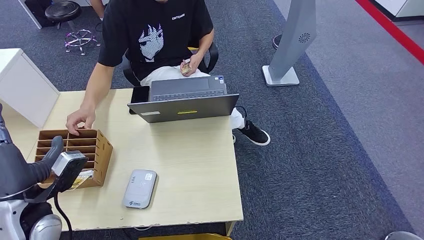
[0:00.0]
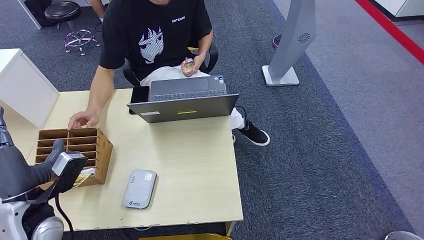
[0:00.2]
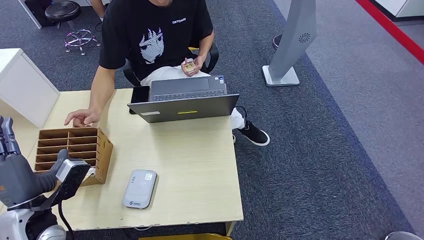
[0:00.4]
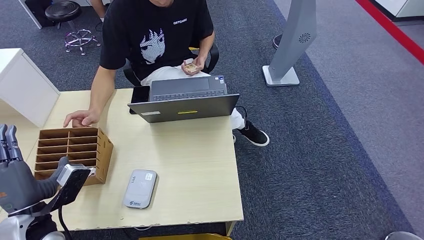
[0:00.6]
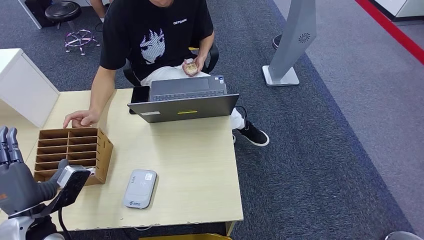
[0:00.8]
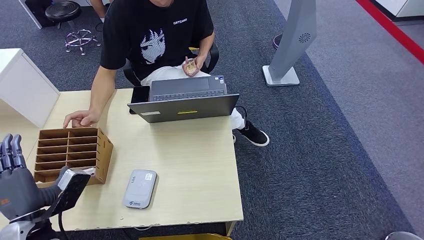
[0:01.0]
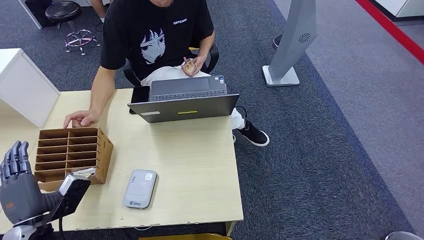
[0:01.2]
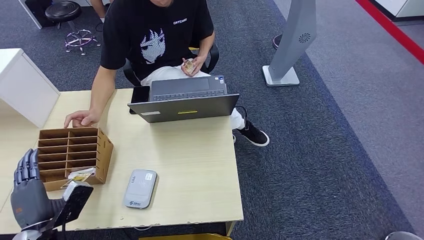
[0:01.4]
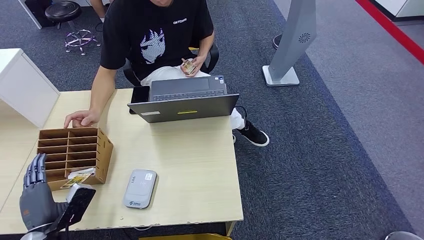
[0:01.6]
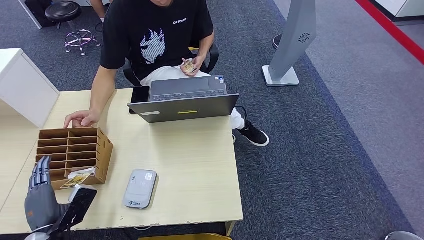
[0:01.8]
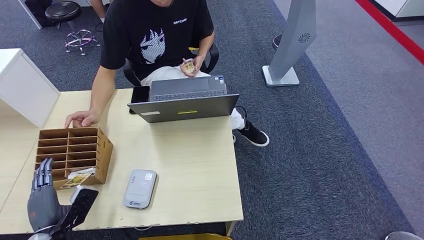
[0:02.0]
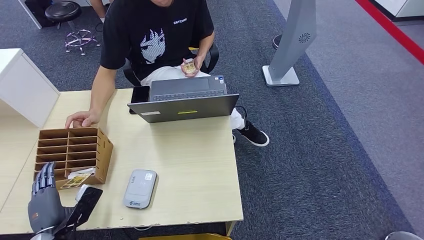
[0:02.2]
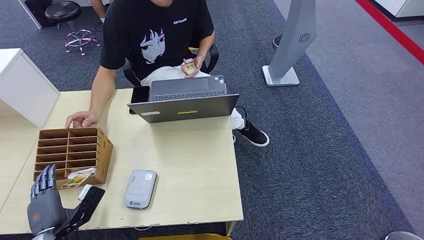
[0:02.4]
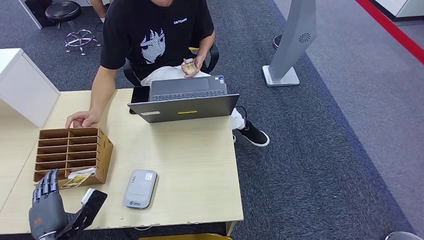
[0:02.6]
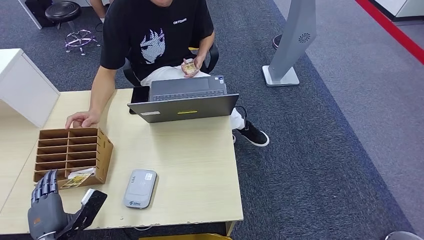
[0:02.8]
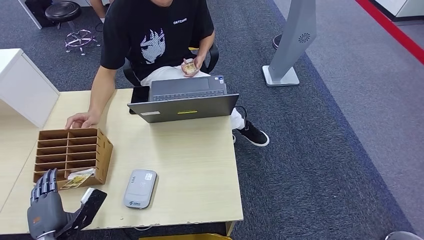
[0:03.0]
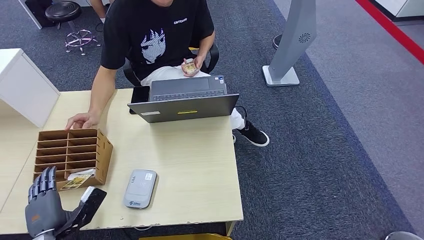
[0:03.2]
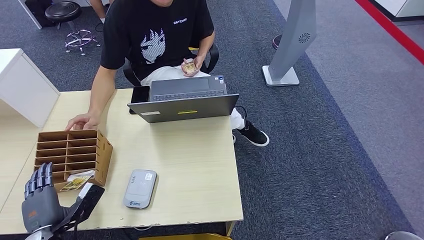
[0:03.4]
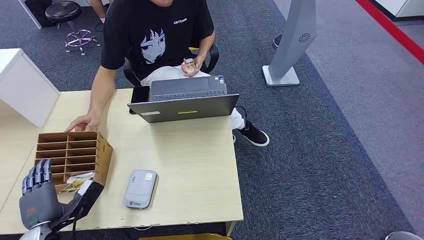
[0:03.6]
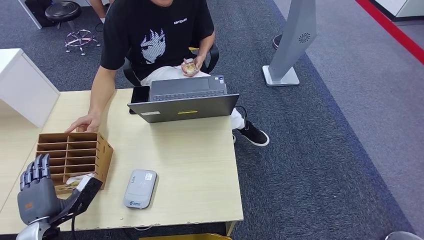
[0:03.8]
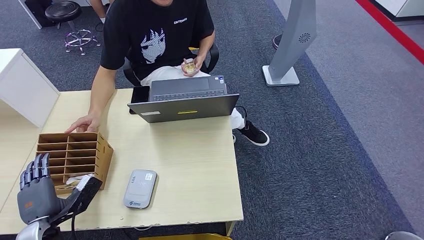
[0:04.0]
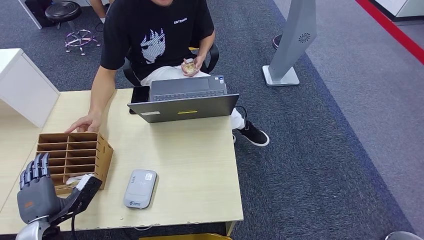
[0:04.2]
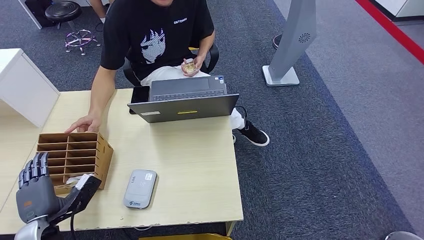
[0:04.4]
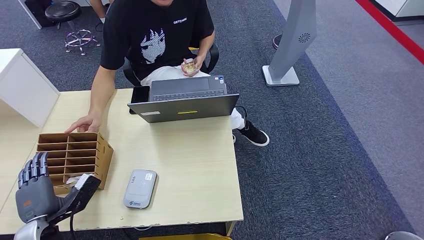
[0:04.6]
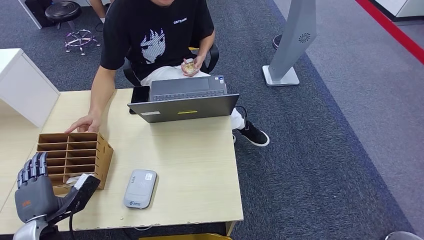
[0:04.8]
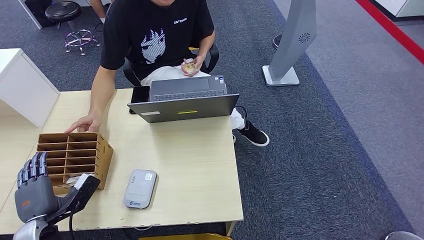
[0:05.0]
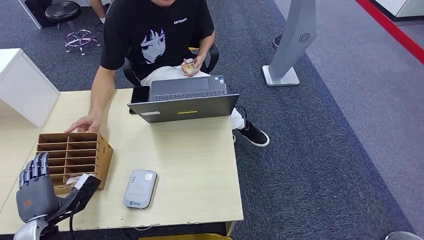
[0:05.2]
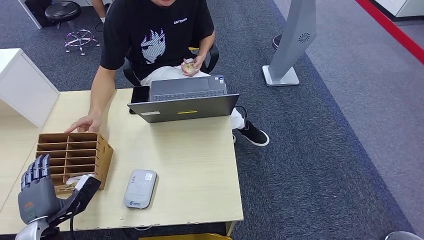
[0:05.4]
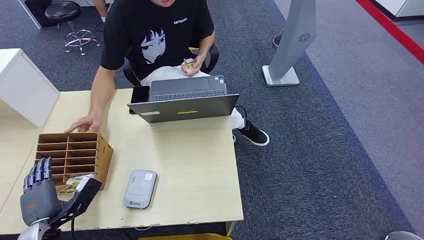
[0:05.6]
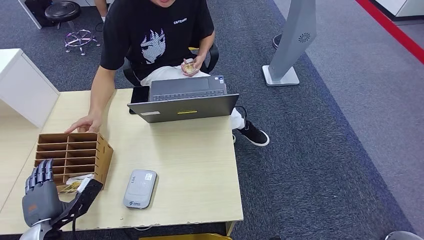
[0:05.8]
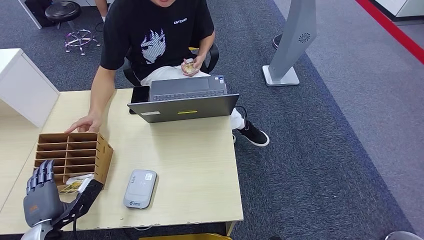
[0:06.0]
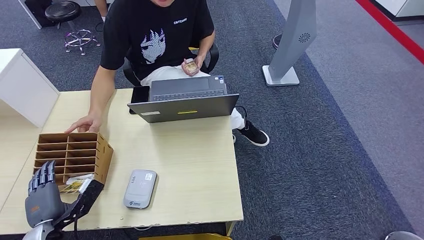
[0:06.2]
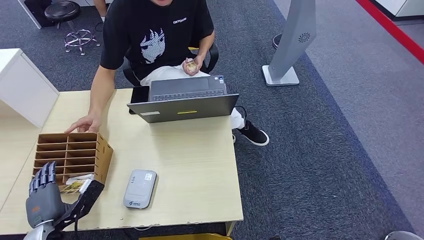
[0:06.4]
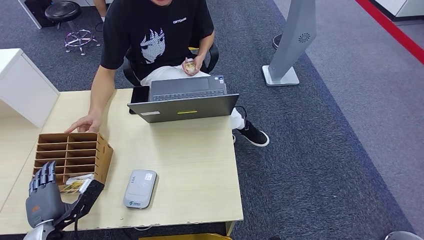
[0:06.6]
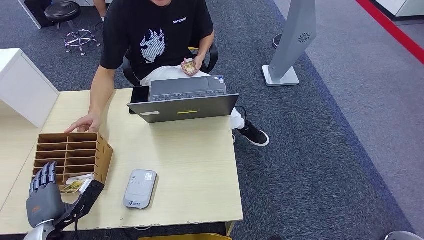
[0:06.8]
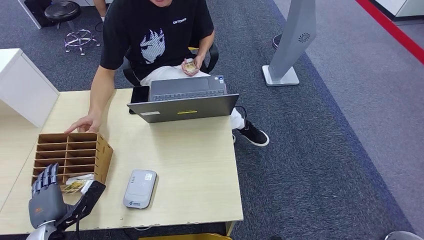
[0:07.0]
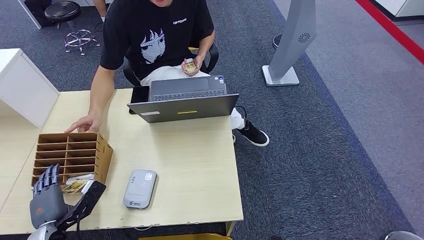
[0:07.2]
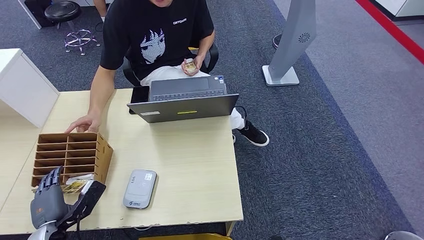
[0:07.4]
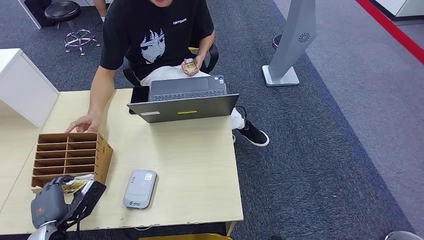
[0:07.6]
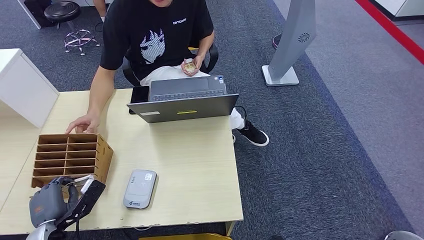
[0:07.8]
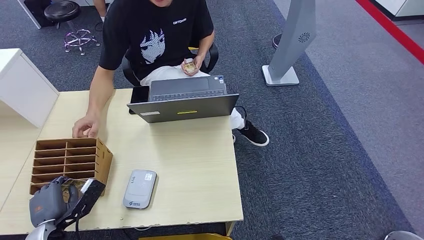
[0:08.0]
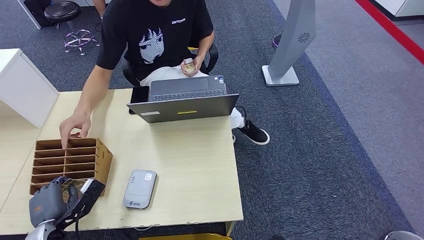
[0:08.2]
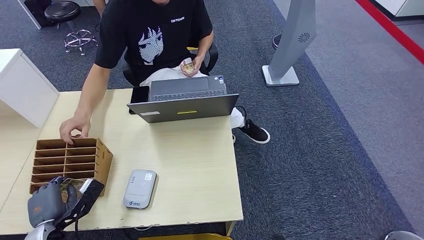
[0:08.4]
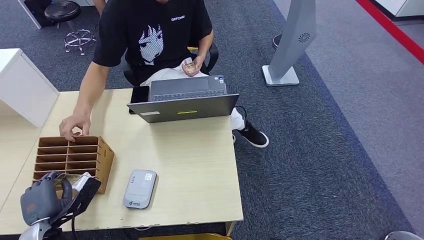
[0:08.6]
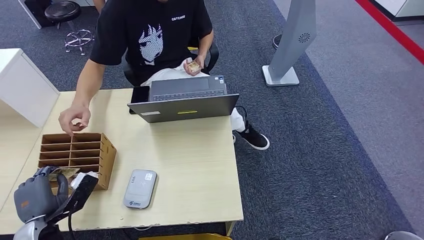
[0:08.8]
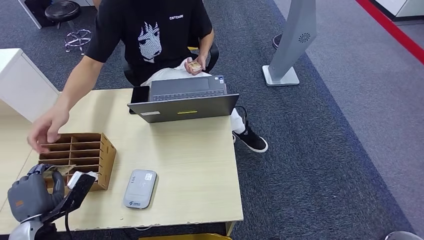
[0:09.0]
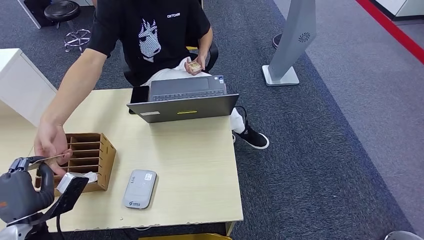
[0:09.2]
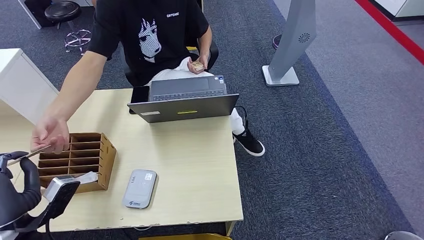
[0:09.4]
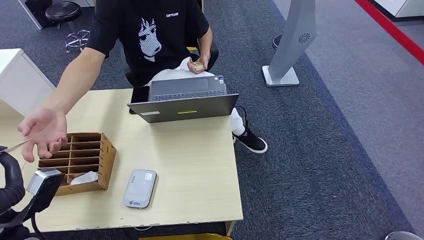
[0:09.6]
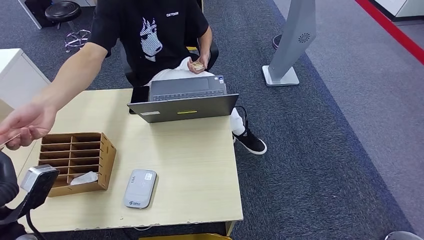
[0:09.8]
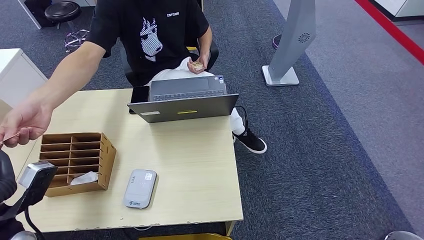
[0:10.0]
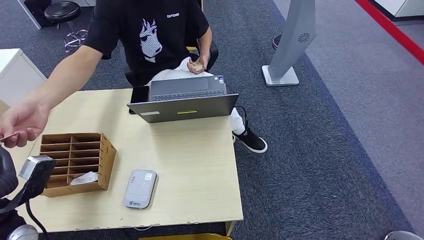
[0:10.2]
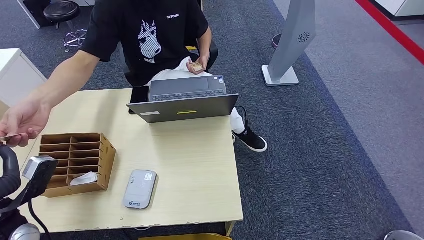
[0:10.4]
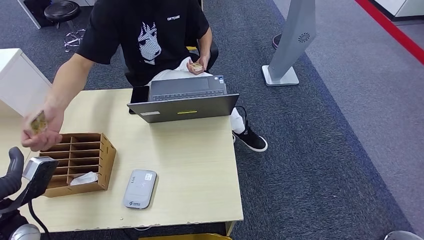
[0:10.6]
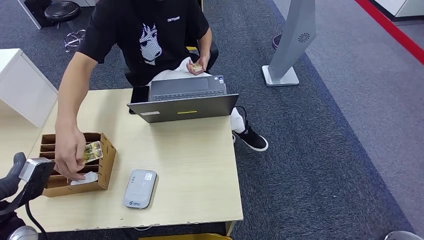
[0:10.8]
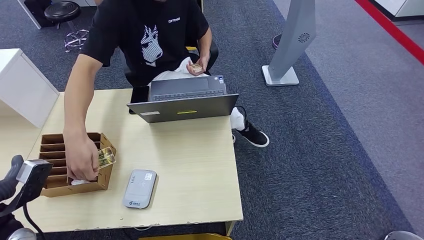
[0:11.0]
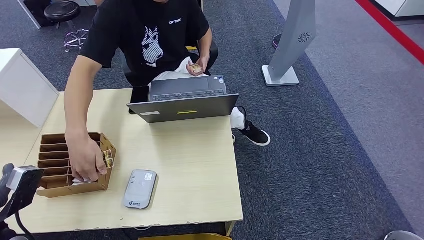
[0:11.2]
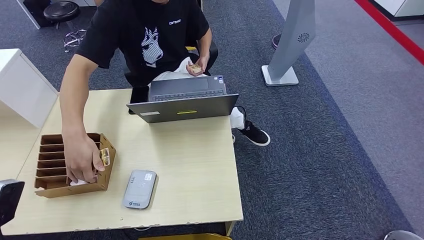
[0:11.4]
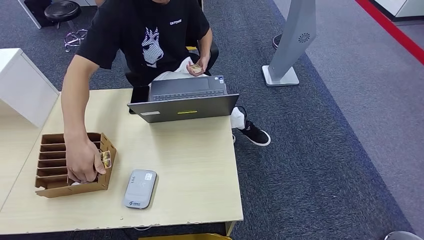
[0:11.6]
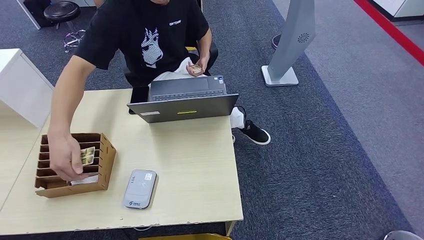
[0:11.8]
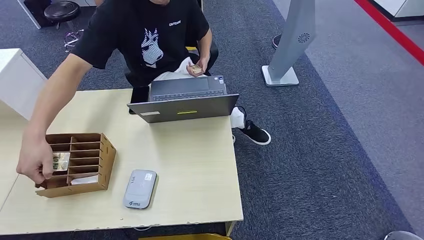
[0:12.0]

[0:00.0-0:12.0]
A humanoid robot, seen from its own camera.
Step, 0:00.0 to 0:09.0: Pick up the room key from the key card box.
Step, 0:09.2 to 0:11.8: Hand the room key to the person.
0:00.0 to 0:01.6: The left hand heads downward and backward, covering approximately 10 cm.
0:01.6 to 0:06.0: There are only small adjustments of the hands.
0:06.0 to 0:07.6: Both hands stay put.
0:07.6 to 0:09.0: The hands stay close to where they were, moving slightly.
0:09.0 to 0:10.4: The left hand is displaced upward by about 5 cm.
0:10.4 to 0:12.0: The left hand travels backward and to the left by approximately 20 cm.

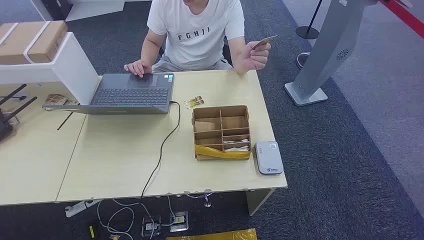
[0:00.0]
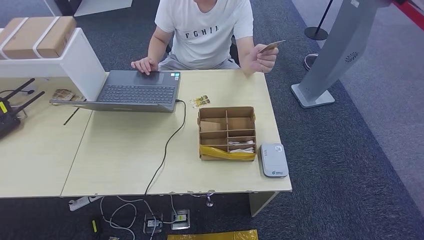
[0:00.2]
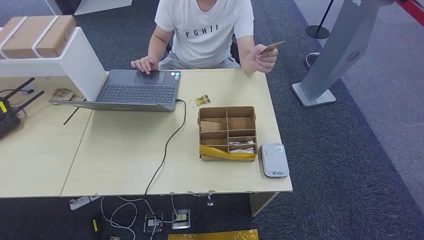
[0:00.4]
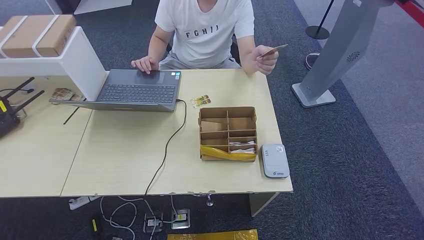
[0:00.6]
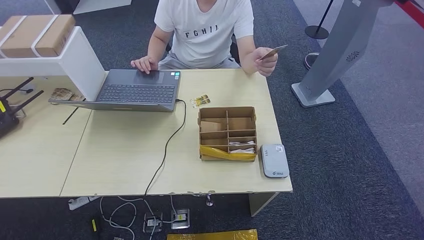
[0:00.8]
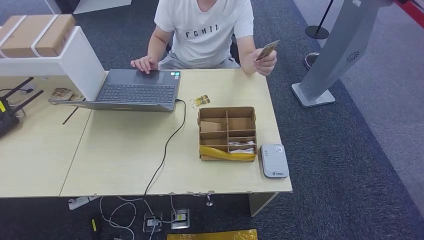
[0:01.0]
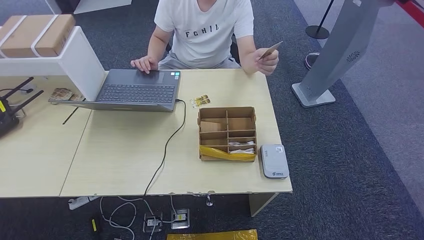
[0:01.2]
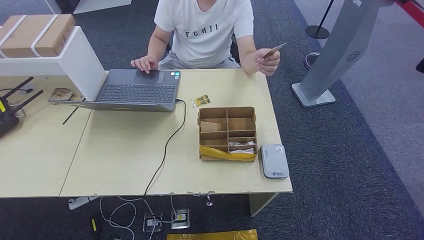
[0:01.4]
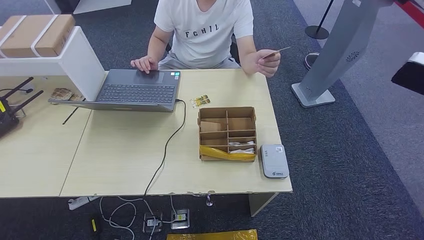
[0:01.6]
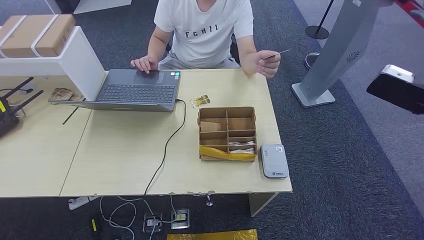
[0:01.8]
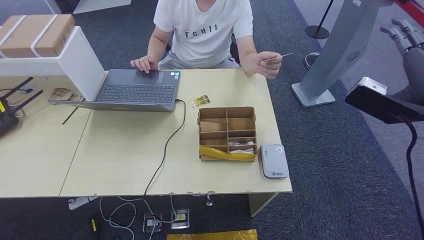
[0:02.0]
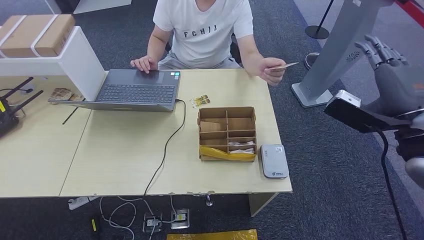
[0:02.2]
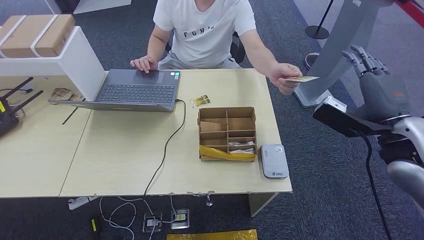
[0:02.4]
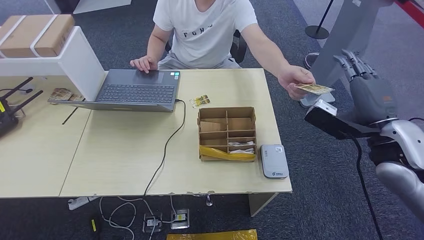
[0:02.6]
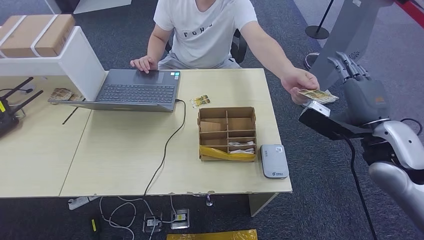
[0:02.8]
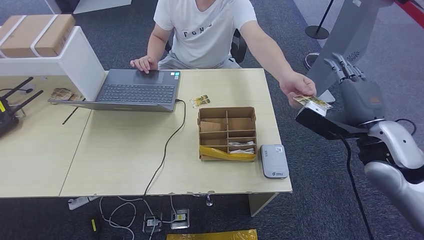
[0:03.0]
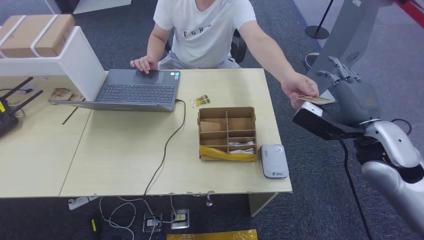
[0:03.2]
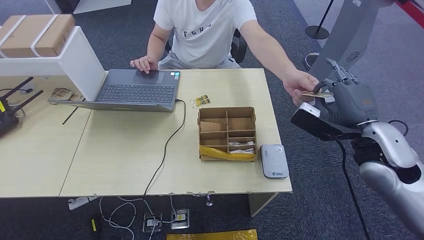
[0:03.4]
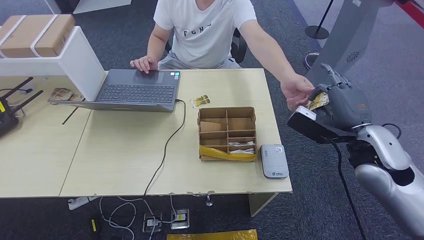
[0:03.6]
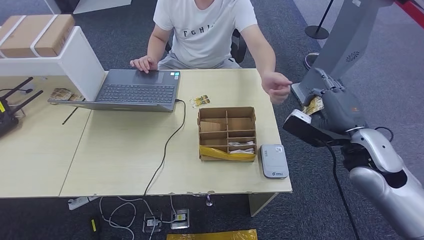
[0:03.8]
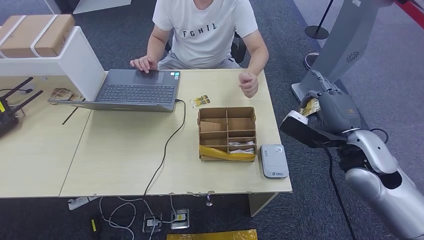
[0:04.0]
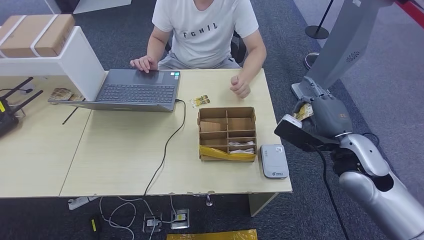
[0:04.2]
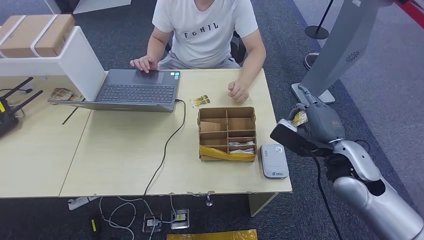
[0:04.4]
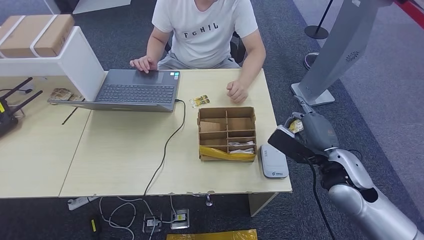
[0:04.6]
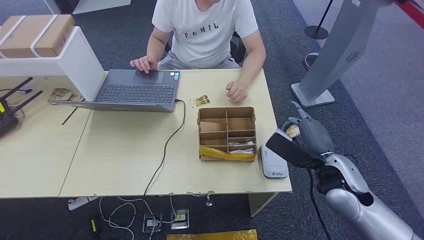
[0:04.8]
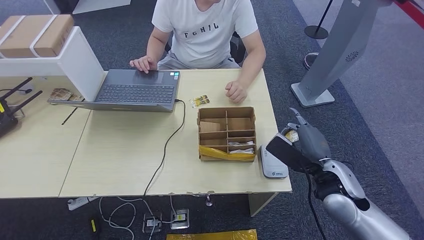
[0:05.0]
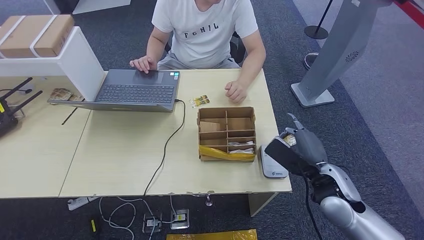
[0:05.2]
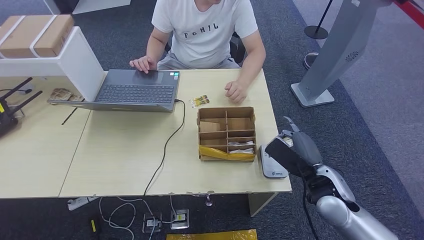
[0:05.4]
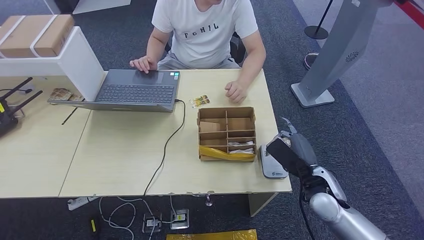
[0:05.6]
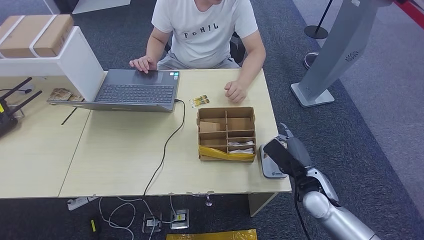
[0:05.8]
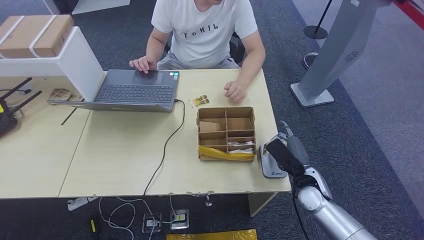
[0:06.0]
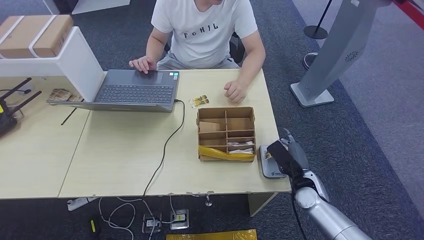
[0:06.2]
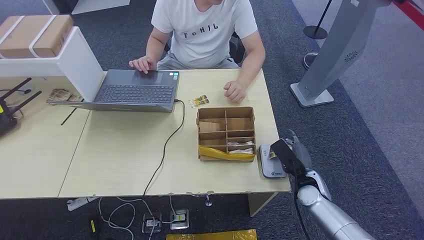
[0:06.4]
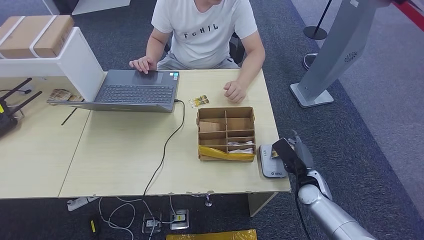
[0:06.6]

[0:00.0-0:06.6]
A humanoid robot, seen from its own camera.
Step, 0:00.0 to 0:03.6: Take the ID card from the person's hand.
0:01.6 to 0:03.2: The right hand goes about 20 cm downward and to the left.
0:03.2 to 0:05.0: The right hand is displaced downward and to the left by some 10 cm.
0:05.0 to 0:06.6: The right hand shifts approximately 15 cm downward.
